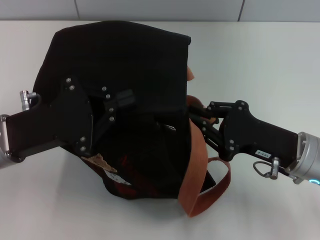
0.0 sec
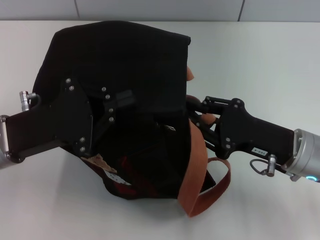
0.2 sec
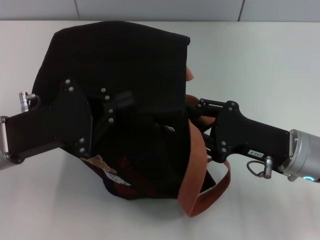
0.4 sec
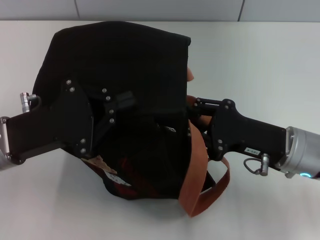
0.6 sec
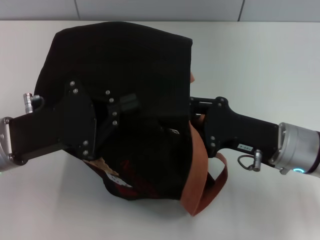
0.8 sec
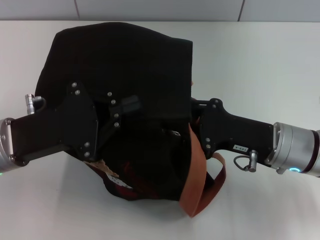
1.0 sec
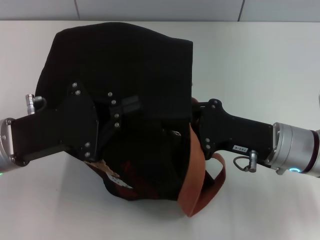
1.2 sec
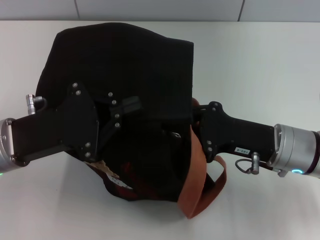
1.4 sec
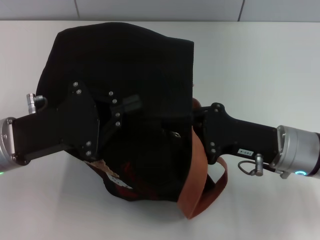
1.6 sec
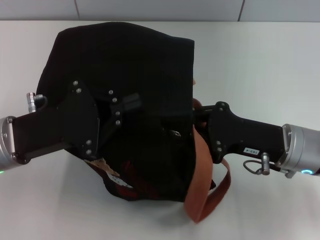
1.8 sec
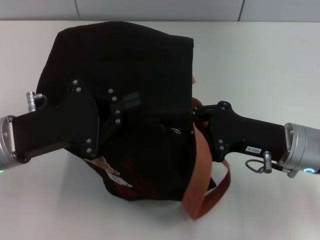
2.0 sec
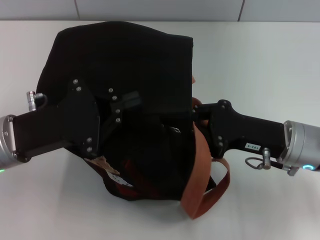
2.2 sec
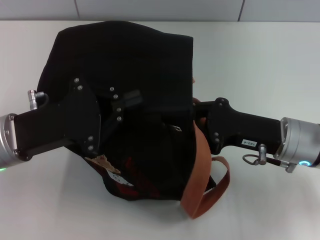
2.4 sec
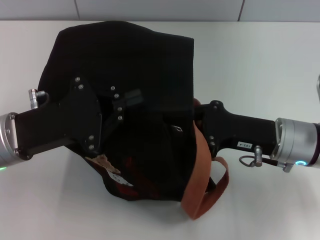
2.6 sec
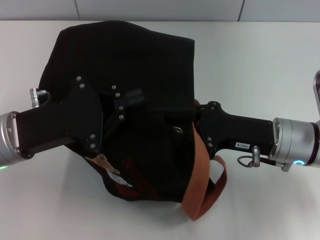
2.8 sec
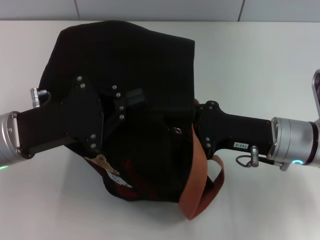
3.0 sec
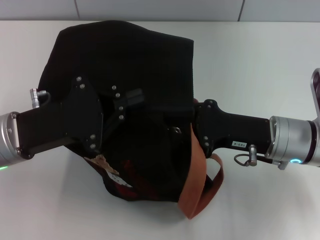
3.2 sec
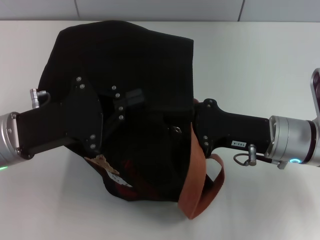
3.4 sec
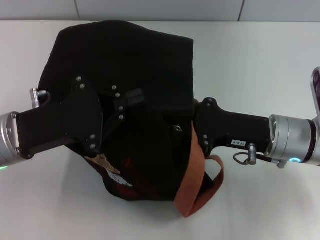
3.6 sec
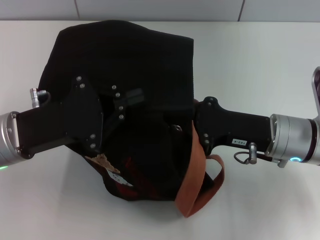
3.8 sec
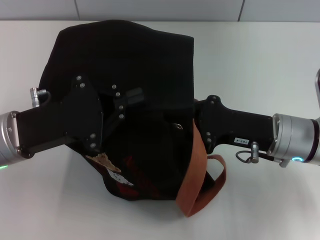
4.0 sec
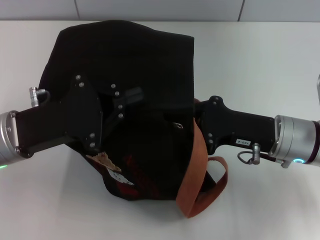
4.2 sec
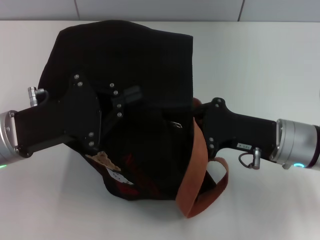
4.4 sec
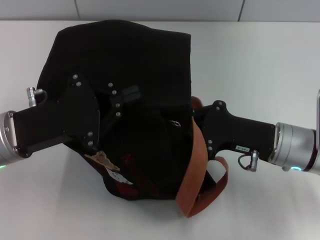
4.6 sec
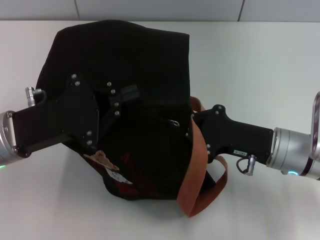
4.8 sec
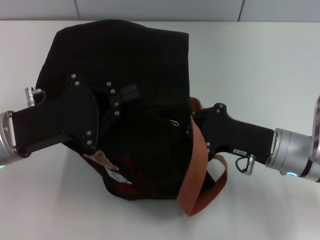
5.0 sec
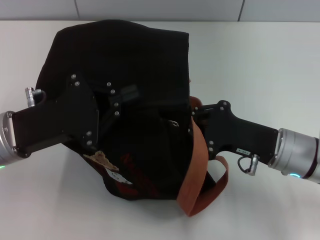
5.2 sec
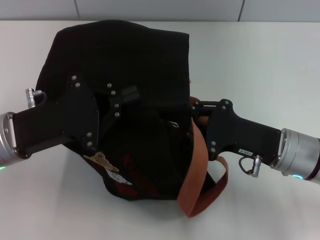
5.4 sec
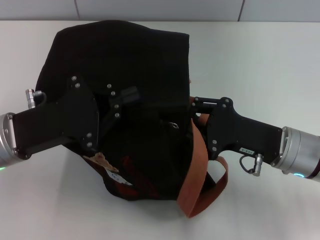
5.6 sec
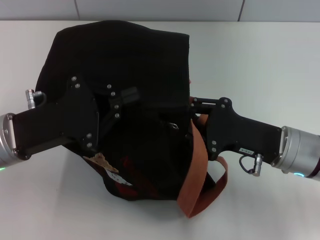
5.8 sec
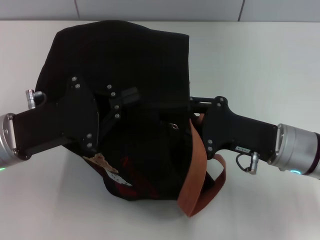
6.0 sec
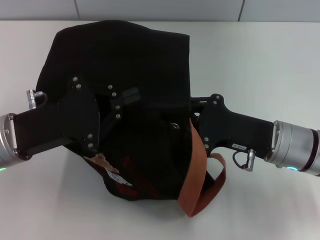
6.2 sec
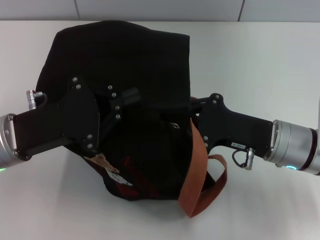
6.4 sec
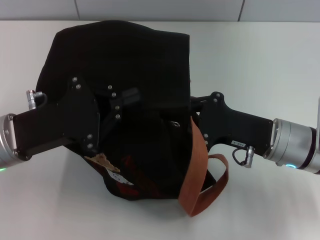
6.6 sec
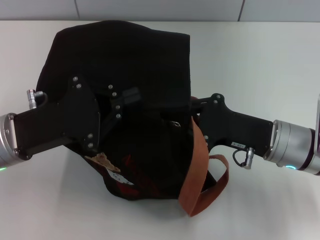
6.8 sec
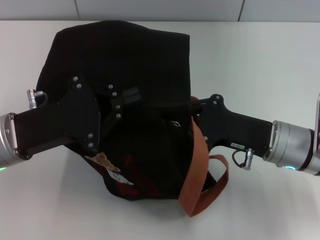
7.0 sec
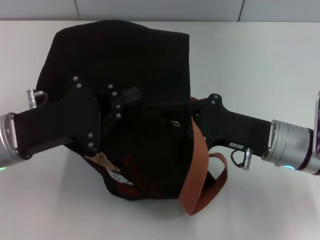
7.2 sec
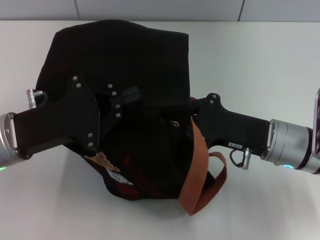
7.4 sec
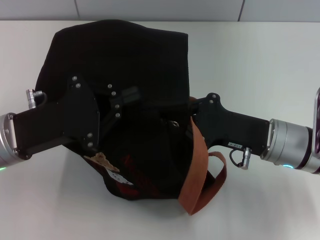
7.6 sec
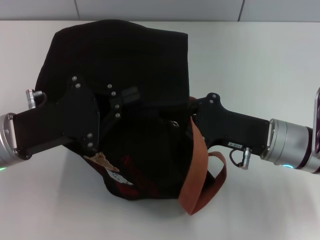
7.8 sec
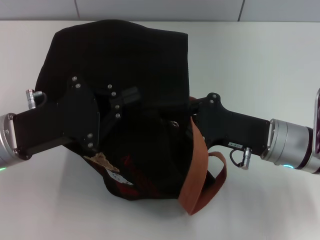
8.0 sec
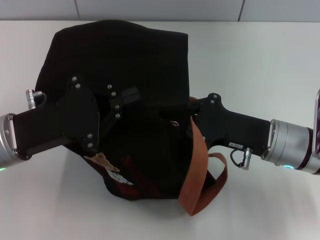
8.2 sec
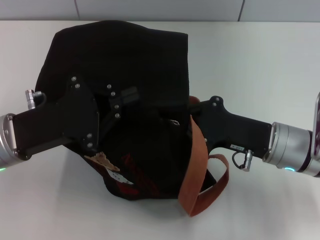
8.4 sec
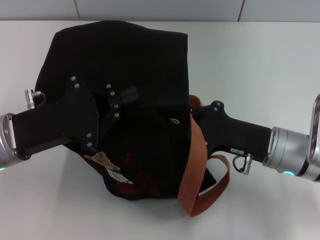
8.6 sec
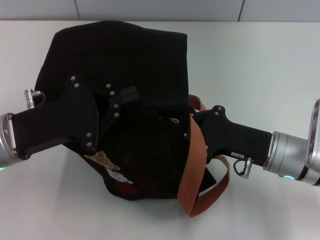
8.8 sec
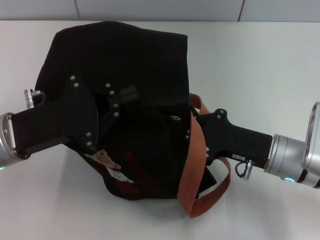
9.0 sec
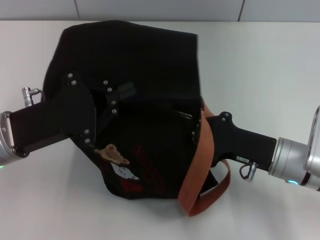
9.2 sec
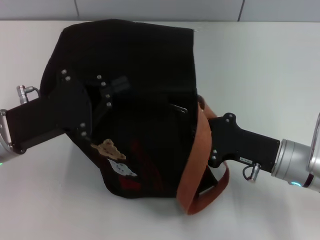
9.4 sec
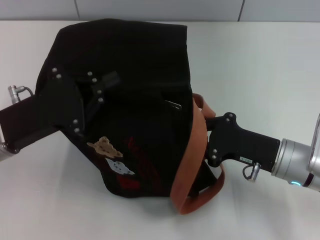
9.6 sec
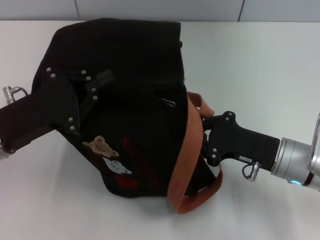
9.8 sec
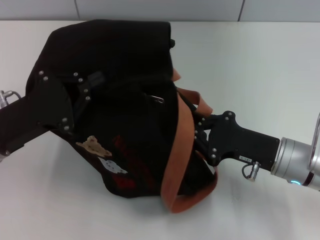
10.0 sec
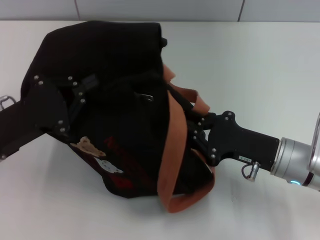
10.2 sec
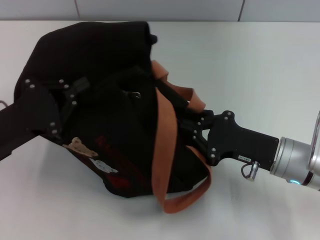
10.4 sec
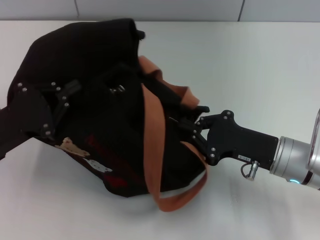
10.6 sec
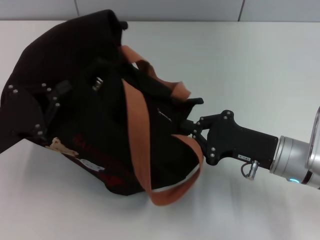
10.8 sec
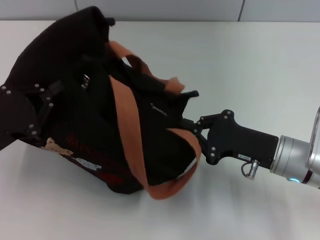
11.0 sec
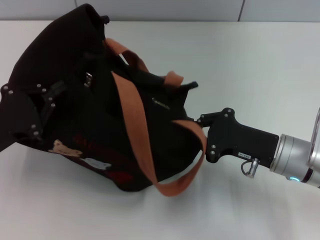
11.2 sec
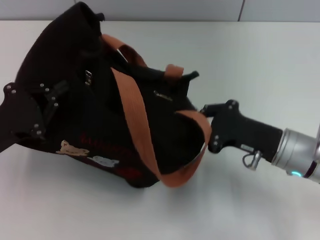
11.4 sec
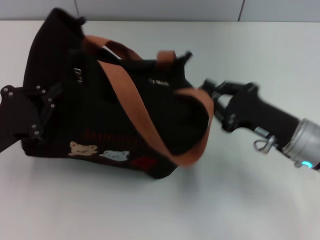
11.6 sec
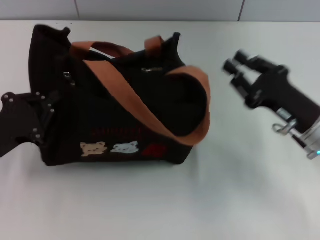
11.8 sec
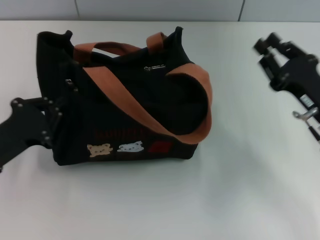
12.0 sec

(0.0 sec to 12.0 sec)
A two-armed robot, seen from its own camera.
Step, 0.0 sec - 11.8 sec: Pull open the zipper with your right hand.
0.0 sec - 4.4 sec: The grippers make only small movements.
4.4 sec - 6.0 sec: The right gripper opens up.
6.0 sec - 7.6 sec: The right gripper closes.
7.6 sec - 9.0 sec: The grippers stay close to where they were, moving slightly.
9.0 sec - 10.4 sec: The left gripper changes place by some 5 cm.
10.4 sec - 12.0 sec: The right gripper is displaced to the right by approximately 5 cm, and opens.

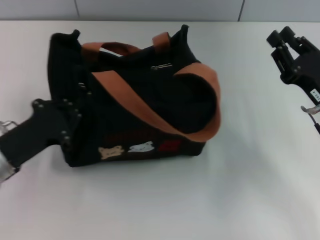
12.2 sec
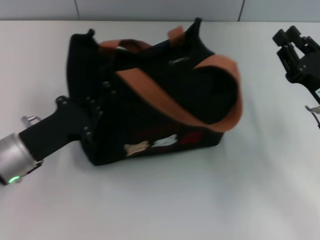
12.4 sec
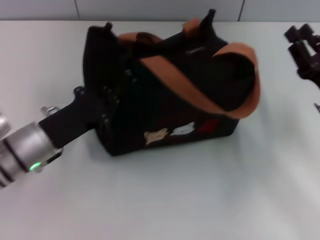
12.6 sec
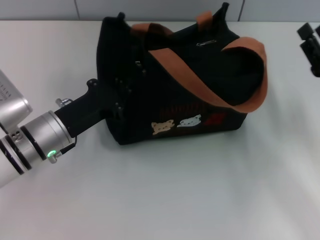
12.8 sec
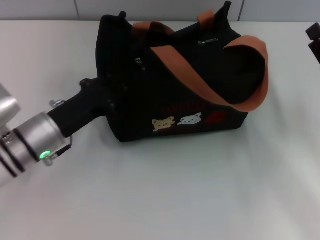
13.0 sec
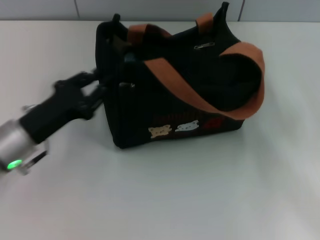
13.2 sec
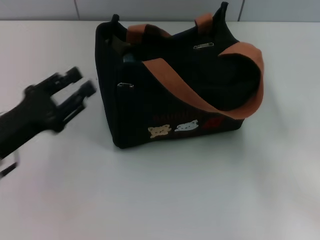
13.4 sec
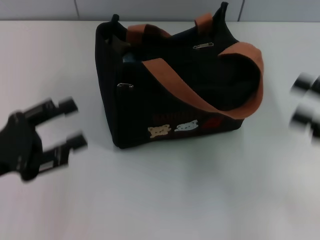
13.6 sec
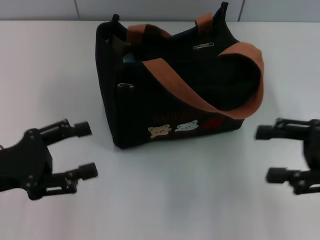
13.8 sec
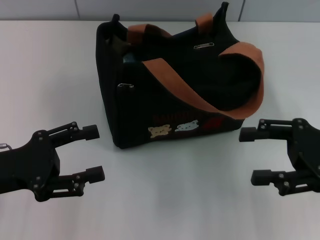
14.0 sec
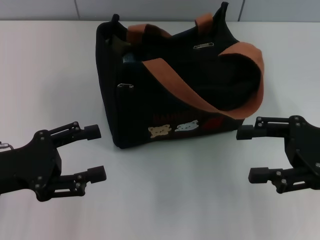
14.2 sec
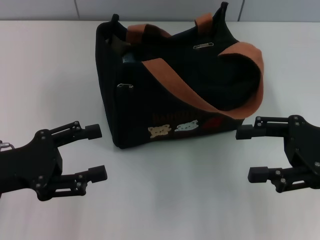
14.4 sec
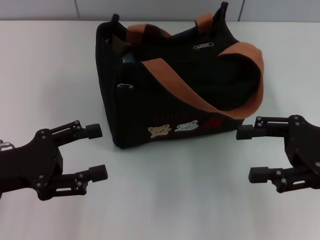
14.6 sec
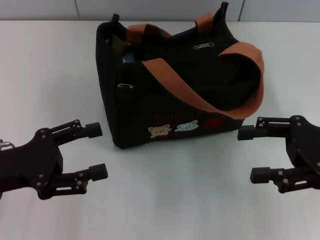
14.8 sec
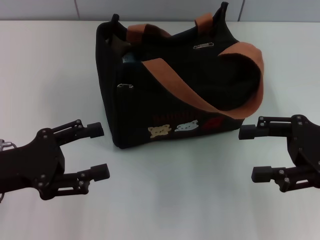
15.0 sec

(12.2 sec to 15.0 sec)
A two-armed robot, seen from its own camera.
Step, 12.2 sec - 13.2 sec: Grab the bag with your left hand.
12.2 sec - 13.6 sec: The right gripper goes some 10 cm to the right and upward, and opens up. Meanwhile the left gripper reaches some 5 cm to the right, then returns, and opens up.
13.6 sec - 15.0 sec: The right gripper moves about 5 cm. Meanwhile the left gripper opens up.

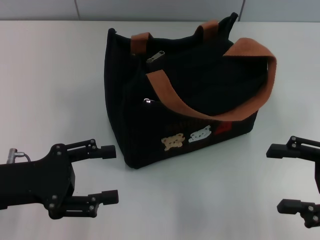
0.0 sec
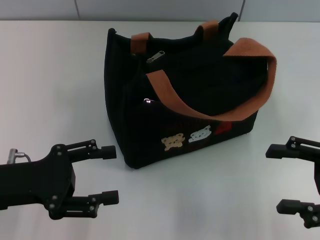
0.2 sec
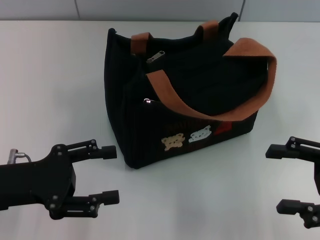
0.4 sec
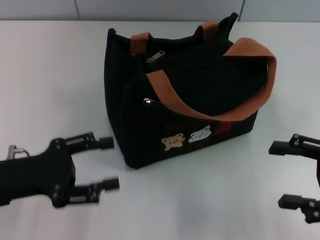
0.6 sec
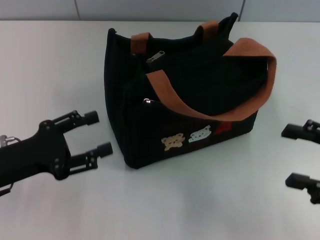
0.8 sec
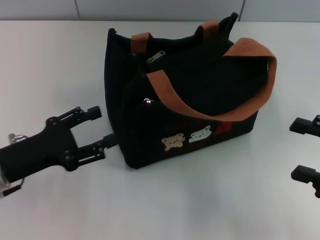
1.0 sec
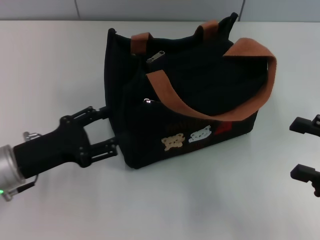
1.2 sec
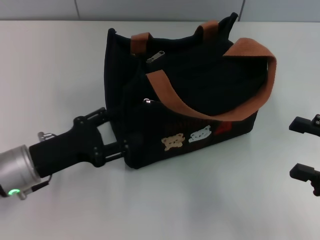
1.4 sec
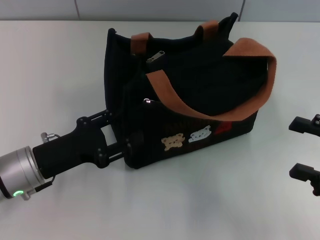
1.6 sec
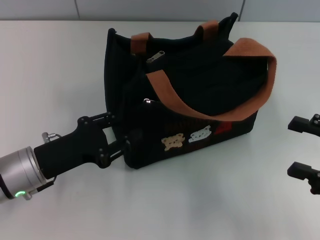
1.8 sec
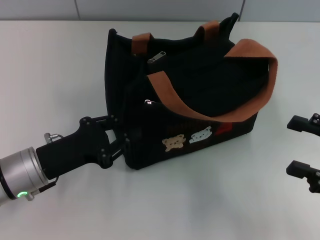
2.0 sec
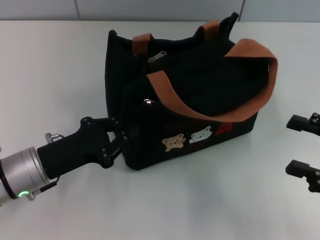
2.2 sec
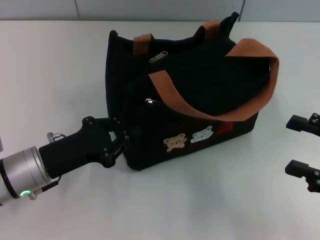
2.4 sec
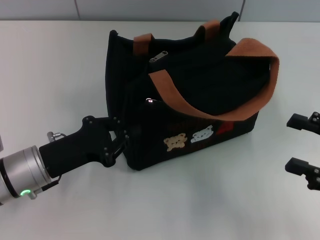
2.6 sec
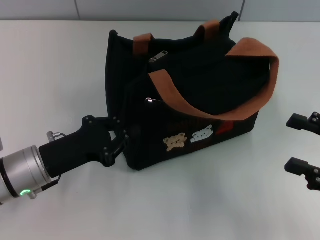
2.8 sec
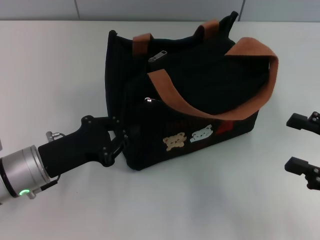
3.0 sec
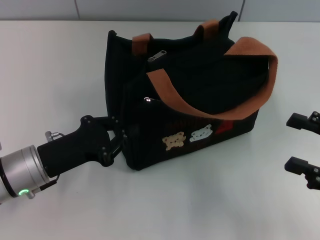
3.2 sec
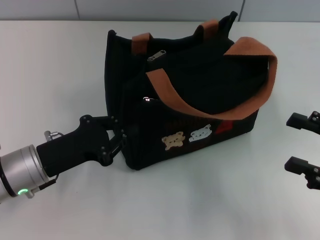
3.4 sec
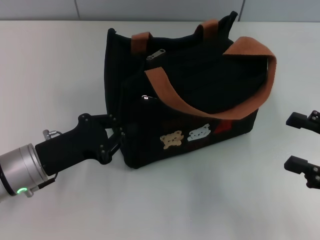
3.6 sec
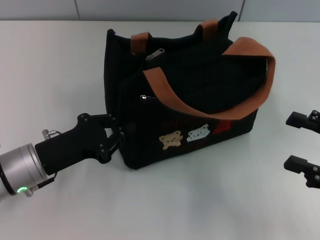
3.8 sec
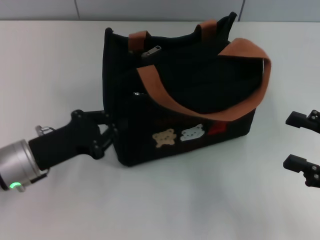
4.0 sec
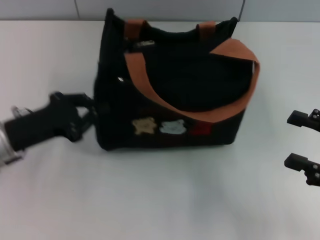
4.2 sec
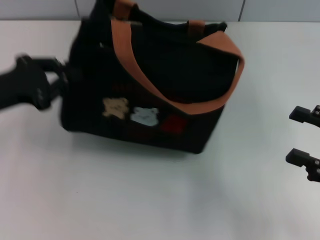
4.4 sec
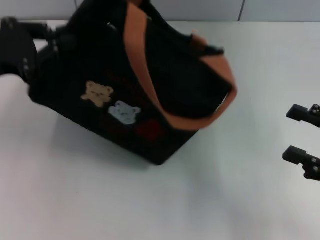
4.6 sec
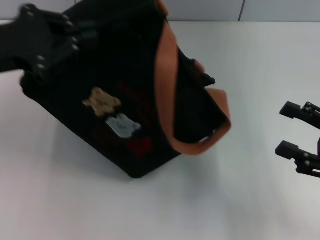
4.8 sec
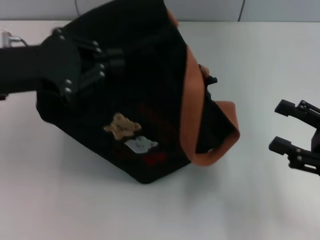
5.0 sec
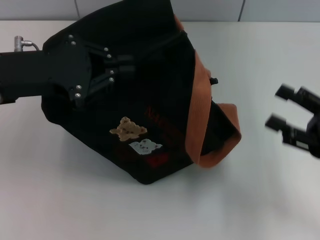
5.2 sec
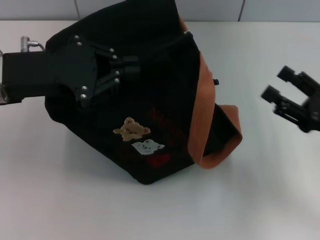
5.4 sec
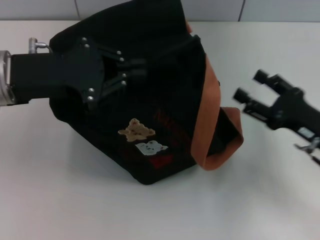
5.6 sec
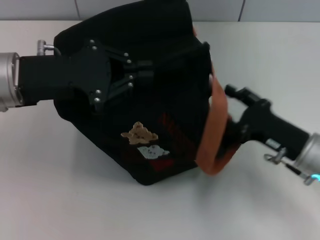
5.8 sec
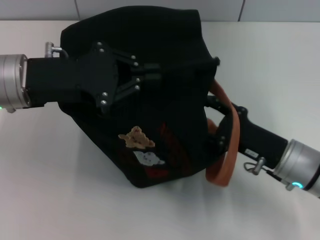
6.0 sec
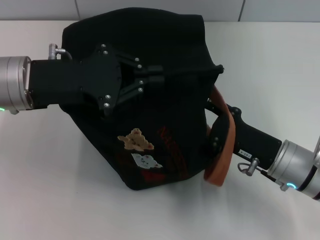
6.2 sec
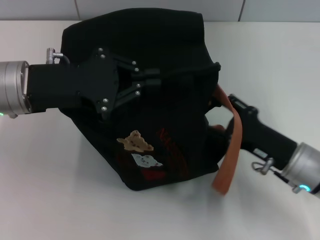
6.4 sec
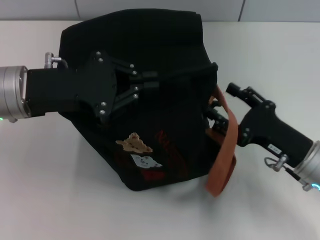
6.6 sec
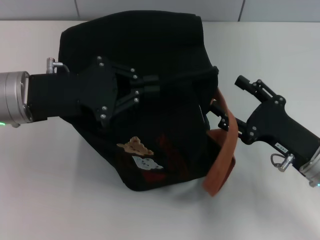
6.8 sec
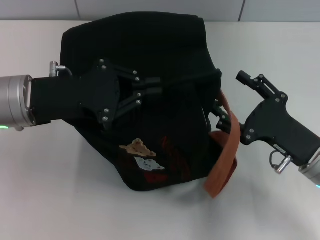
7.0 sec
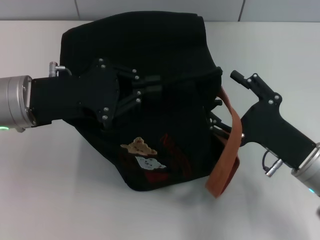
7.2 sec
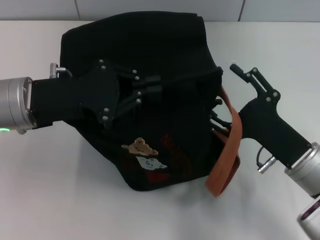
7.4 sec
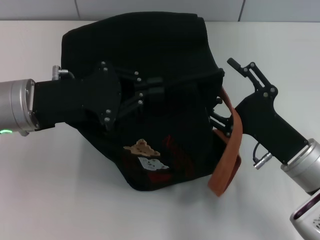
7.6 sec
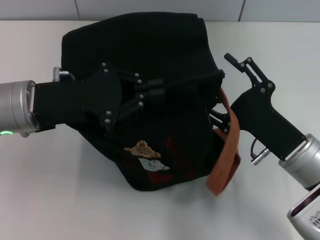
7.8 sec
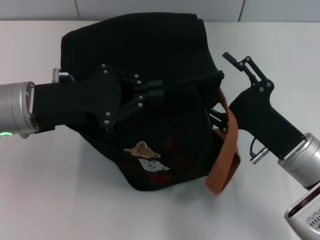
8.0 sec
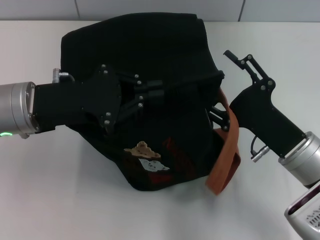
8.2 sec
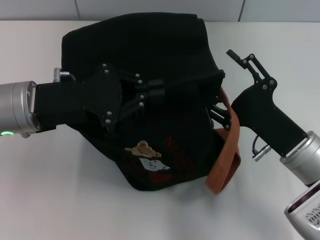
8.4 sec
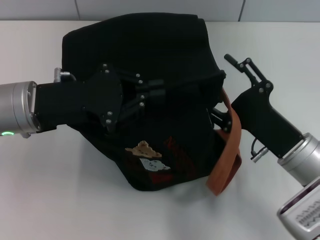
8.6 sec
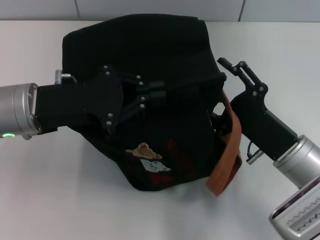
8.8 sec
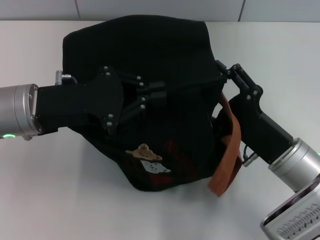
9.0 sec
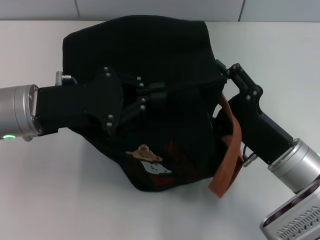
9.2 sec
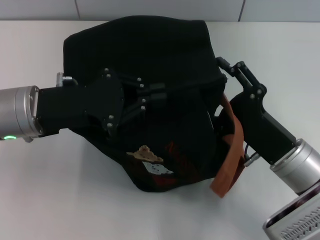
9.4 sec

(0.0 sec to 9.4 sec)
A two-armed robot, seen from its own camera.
0.0 sec - 1.6 sec: The left gripper moves about 5 cm.
1.6 sec - 3.2 sec: The left gripper closes up.
3.2 sec - 4.8 sec: The left gripper heads upward, covering approximately 15 cm.
4.8 sec - 6.2 sec: The right gripper shifts some 15 cm to the left and downward, while the left gripper heads to the right, covering approximately 5 cm.
7.8 sec - 9.4 sec: There are only small adjustments of the grippers.
